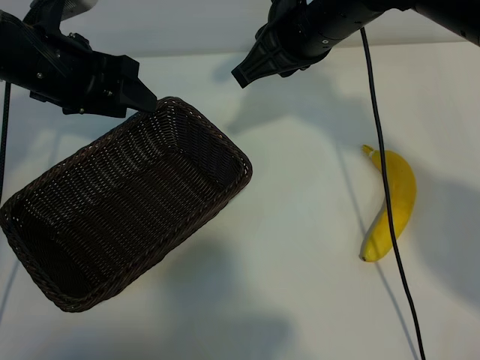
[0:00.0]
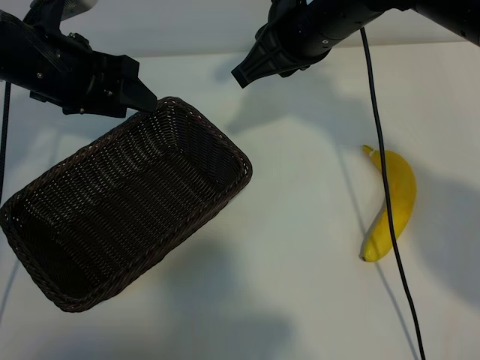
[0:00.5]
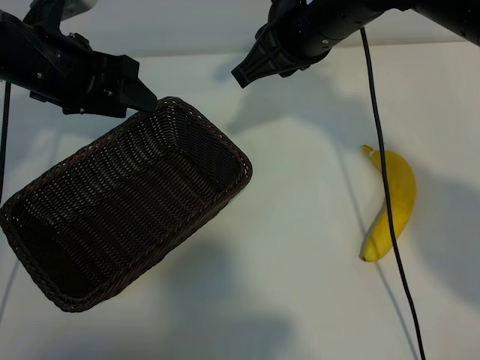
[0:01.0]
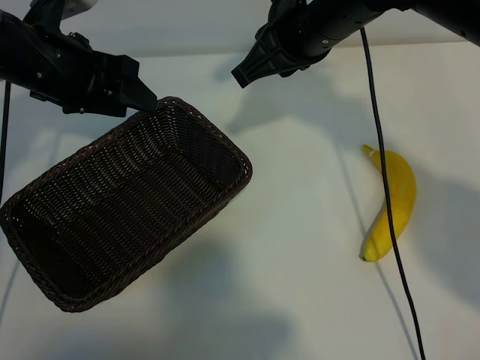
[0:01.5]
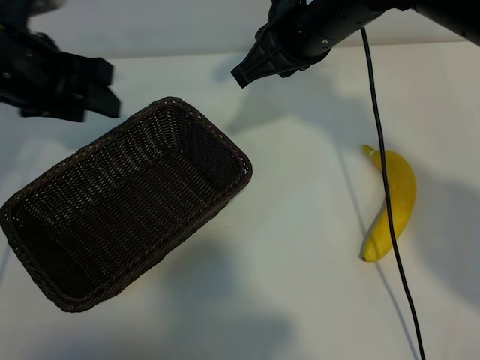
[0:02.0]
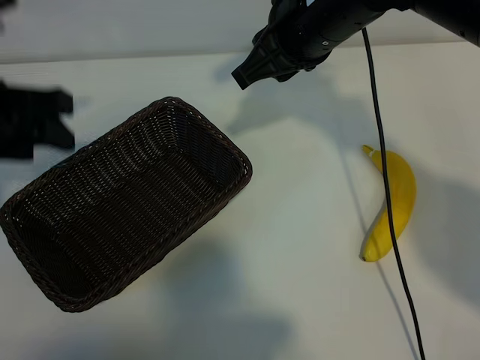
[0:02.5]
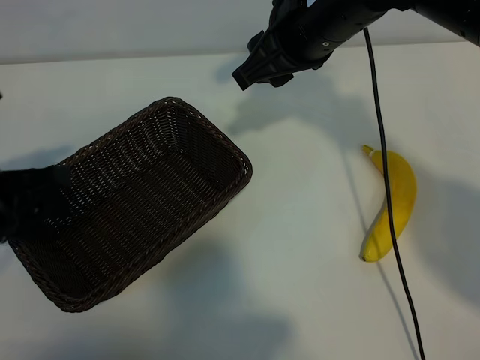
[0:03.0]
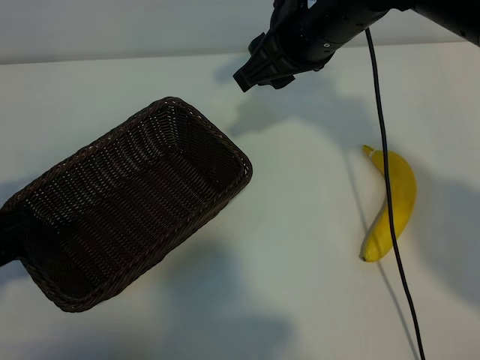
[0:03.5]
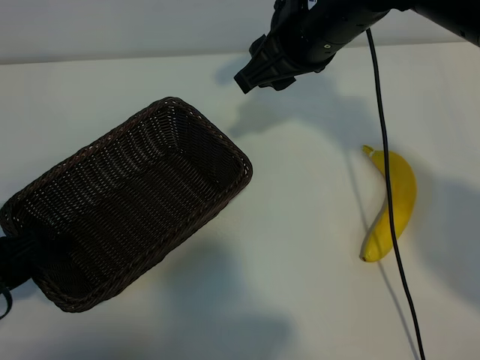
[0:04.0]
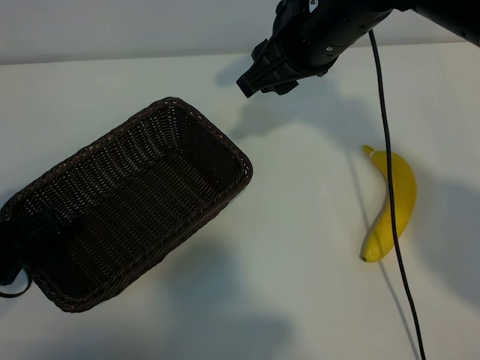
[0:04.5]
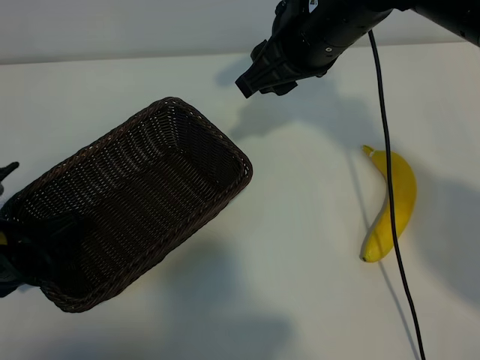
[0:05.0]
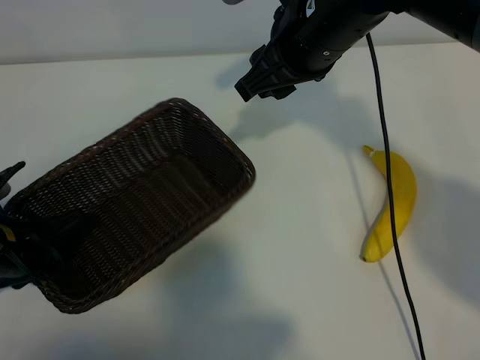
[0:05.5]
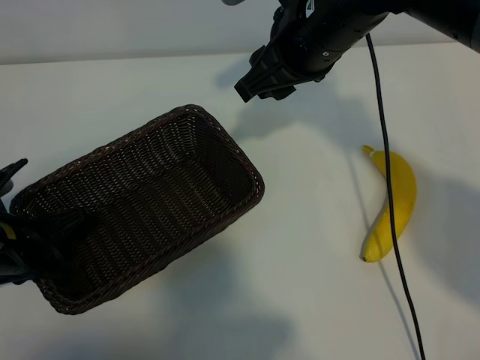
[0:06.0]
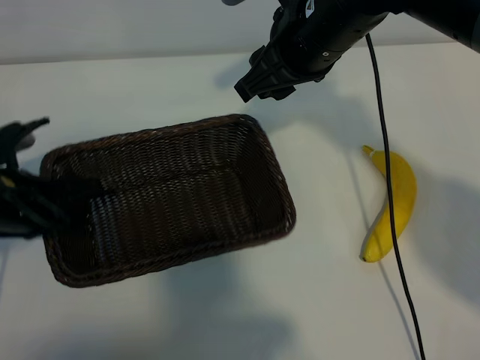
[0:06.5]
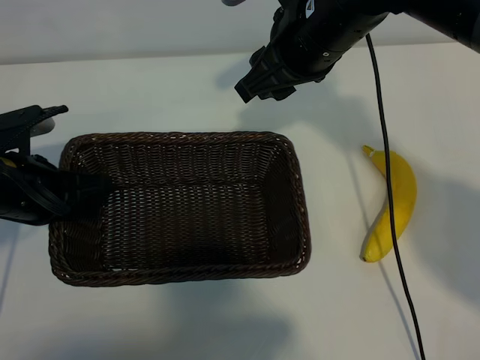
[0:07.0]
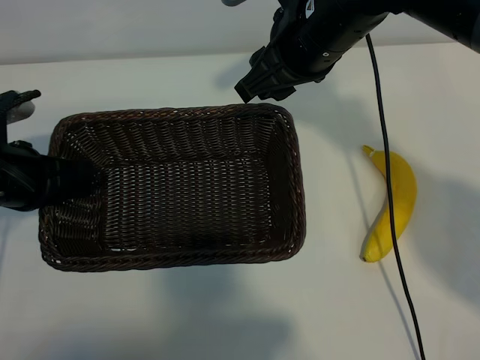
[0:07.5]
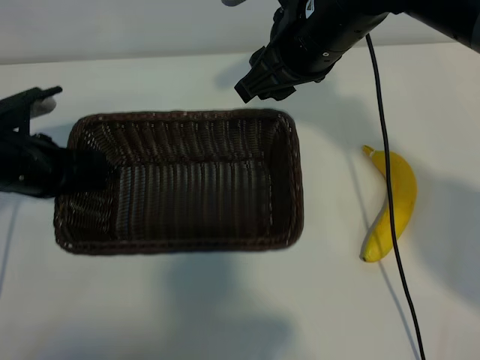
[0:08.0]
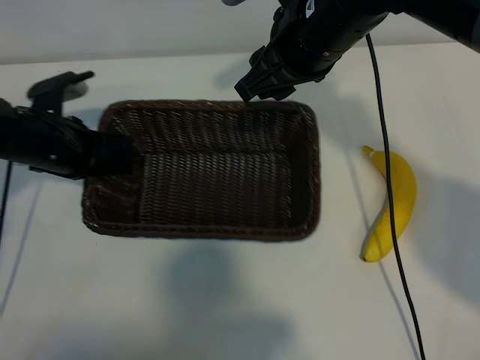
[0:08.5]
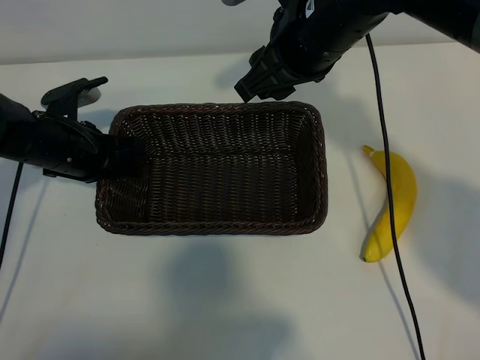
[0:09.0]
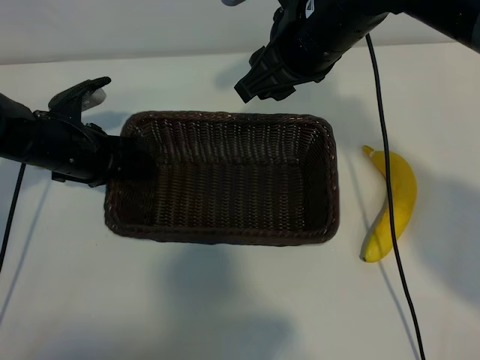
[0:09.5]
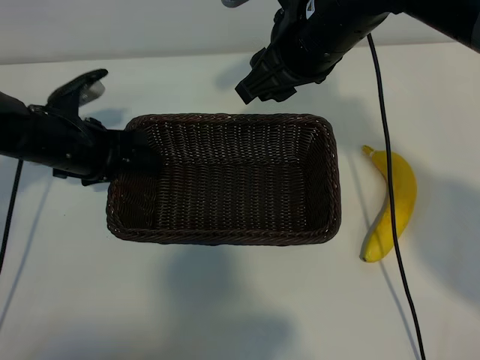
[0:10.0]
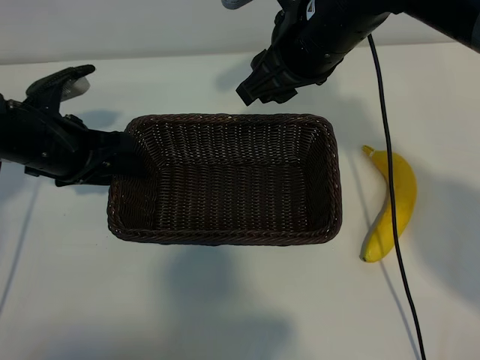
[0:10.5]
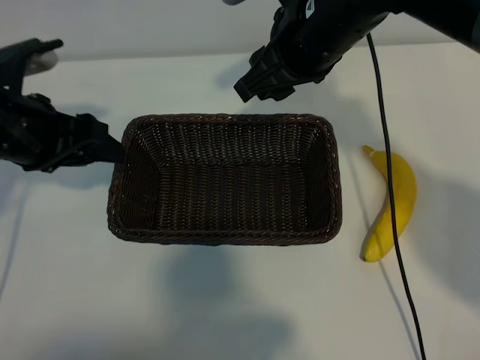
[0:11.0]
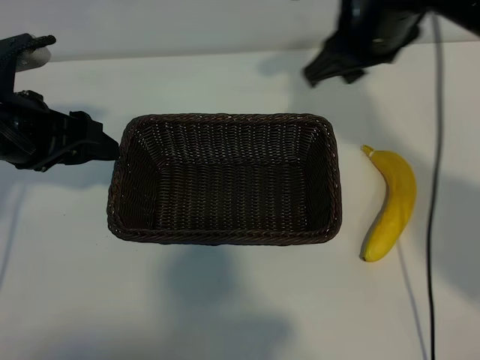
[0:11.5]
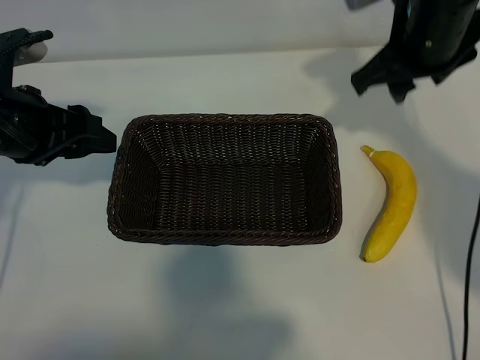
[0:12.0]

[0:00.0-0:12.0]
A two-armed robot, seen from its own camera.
Task of the whole recording: pick up the banana and put it into the basket.
Step, 0:01.5 to 0:06.0: Grasp the basket with the left gripper.
Step, 0:06.5 to 0:10.5: Place the basket in the center of the table with the left gripper.

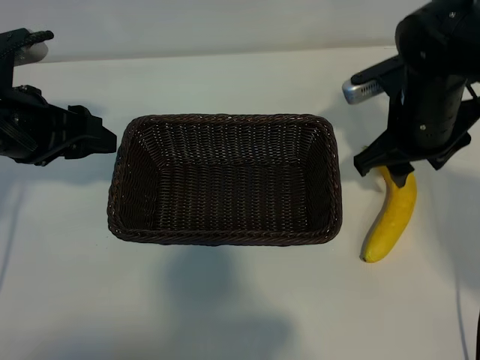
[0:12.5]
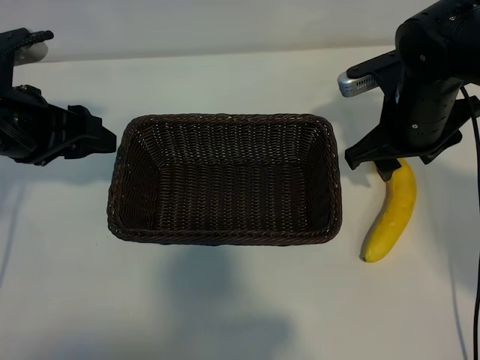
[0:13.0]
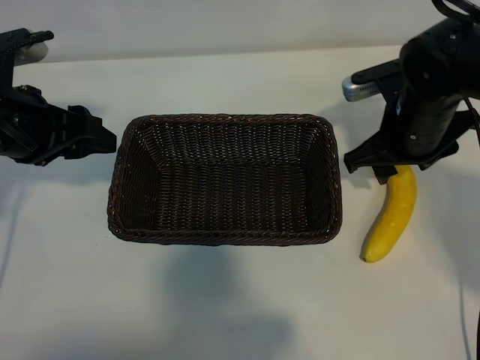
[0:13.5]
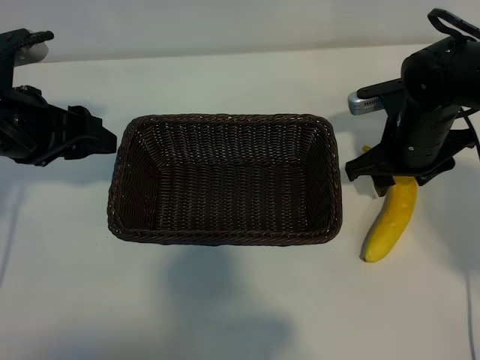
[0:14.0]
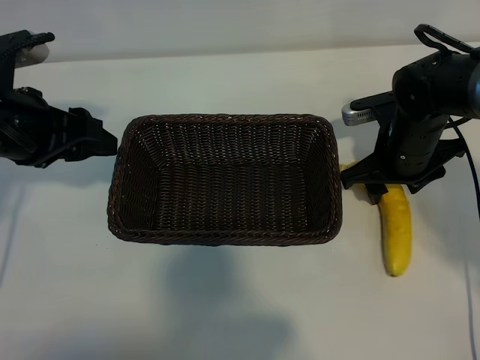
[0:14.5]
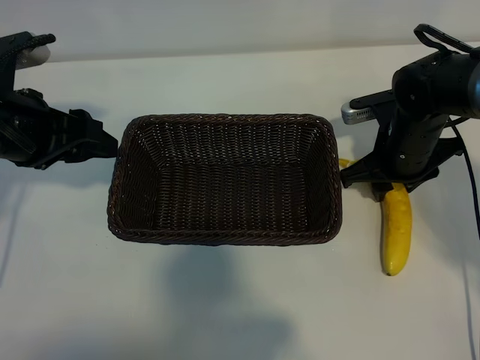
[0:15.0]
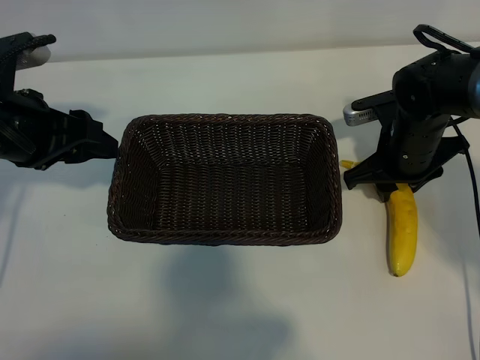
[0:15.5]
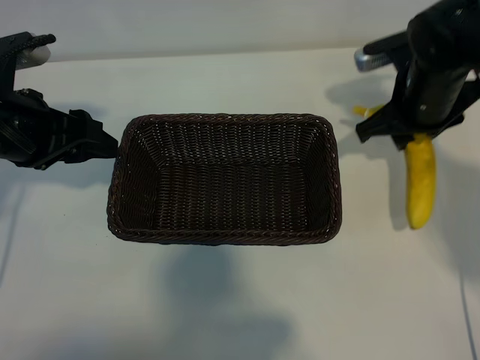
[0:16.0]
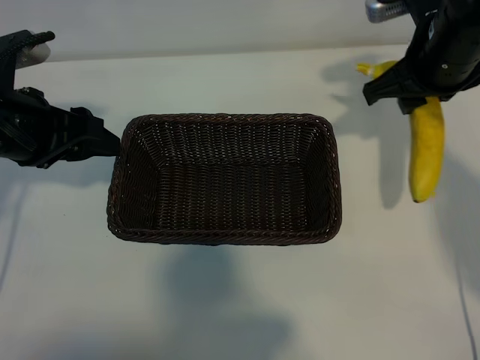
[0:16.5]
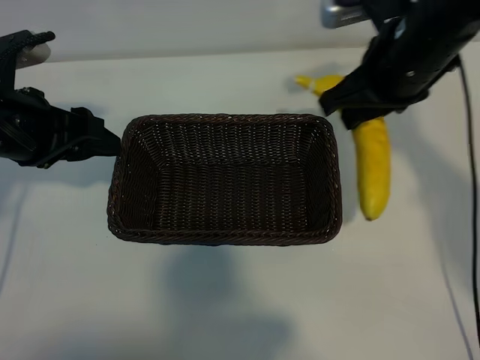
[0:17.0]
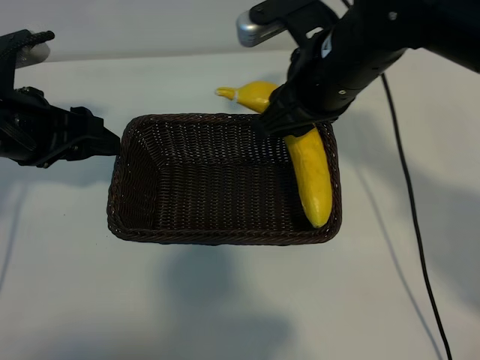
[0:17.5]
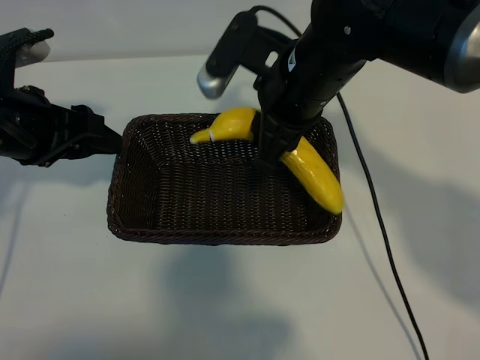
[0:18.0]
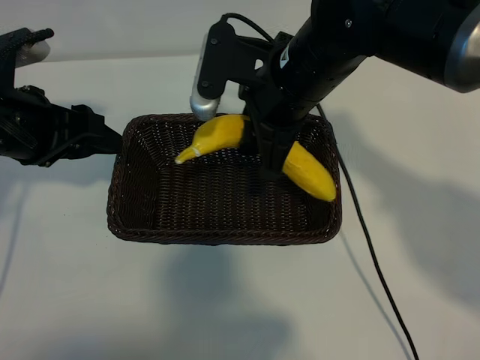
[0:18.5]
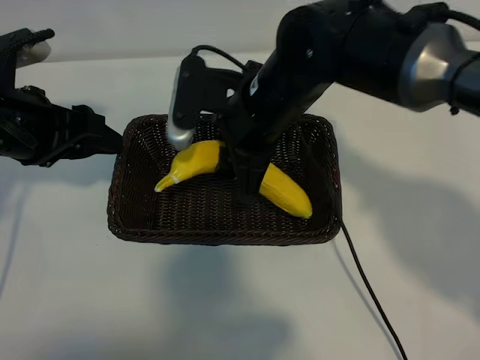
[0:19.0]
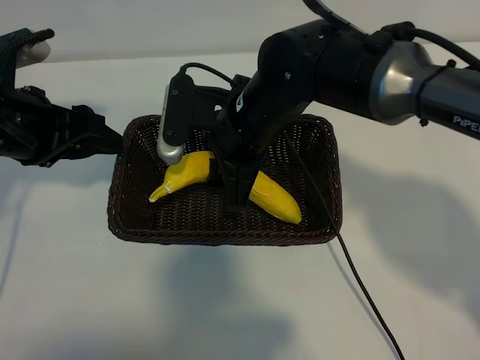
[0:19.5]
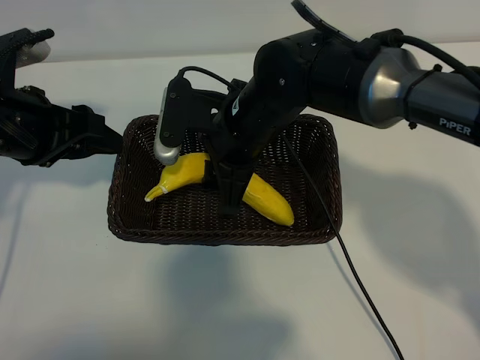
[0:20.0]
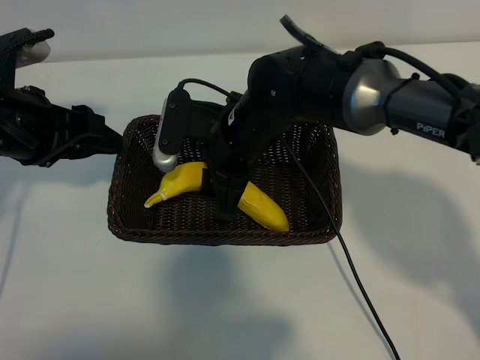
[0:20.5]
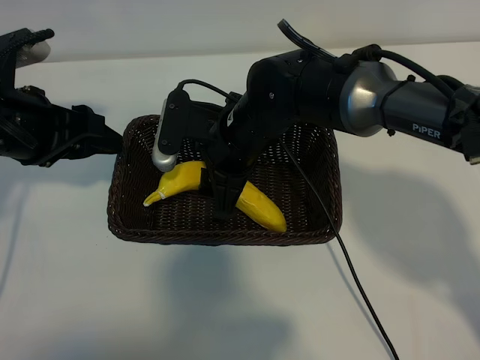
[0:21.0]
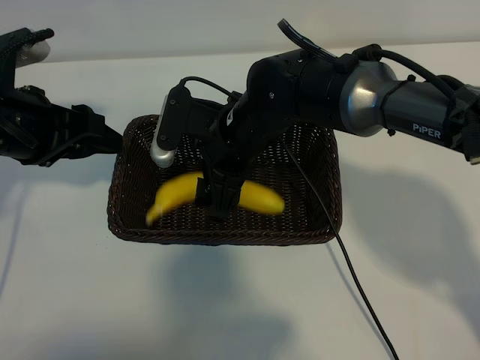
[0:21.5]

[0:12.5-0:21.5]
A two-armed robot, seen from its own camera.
Task of the whole recording: pick up the banana and put it into the basket.
Step, 0:12.5 to 0:15.0: Grasp the banana with right gripper.
